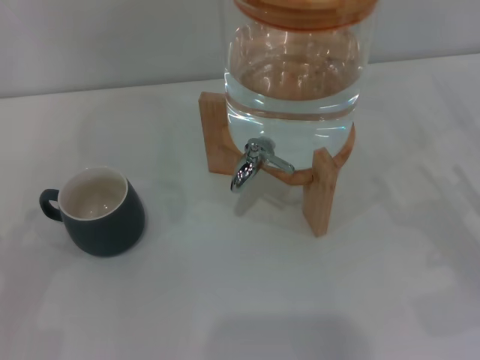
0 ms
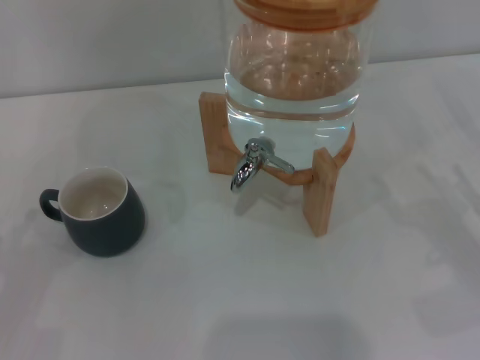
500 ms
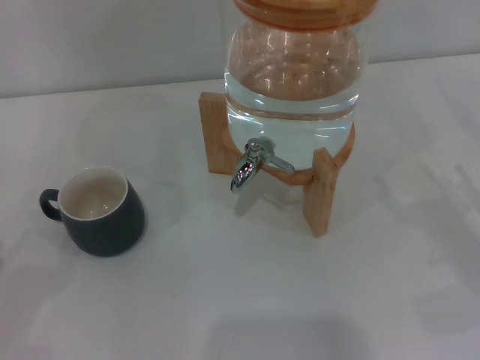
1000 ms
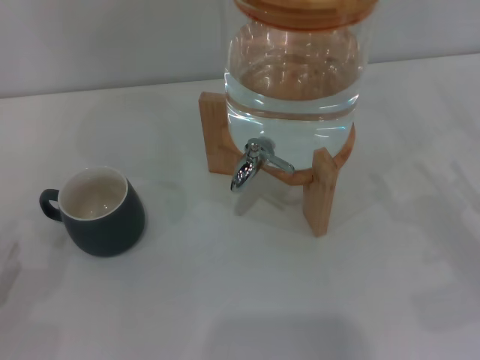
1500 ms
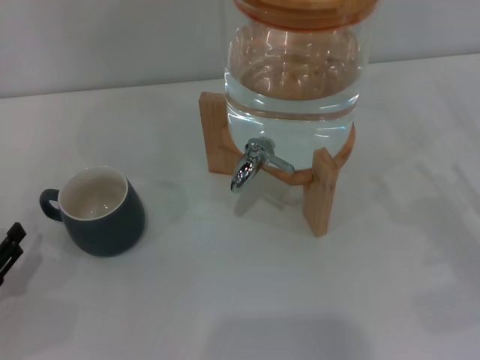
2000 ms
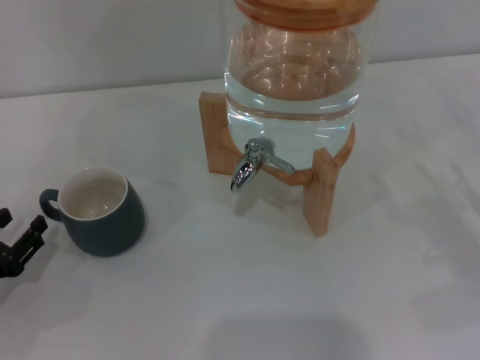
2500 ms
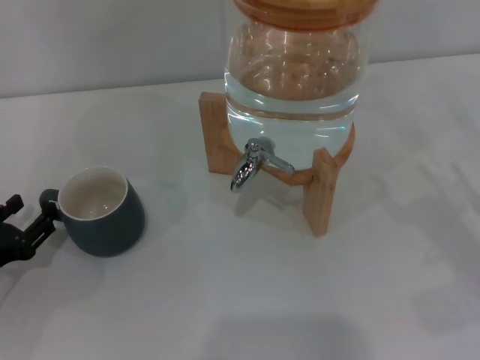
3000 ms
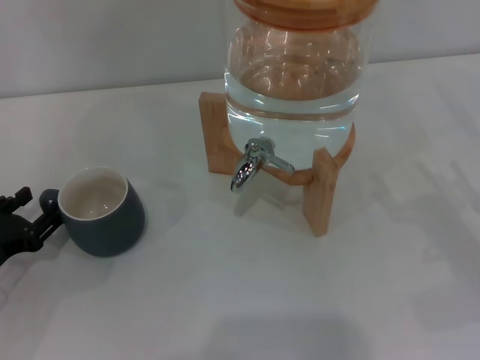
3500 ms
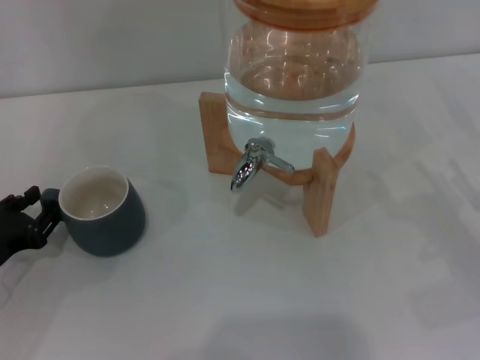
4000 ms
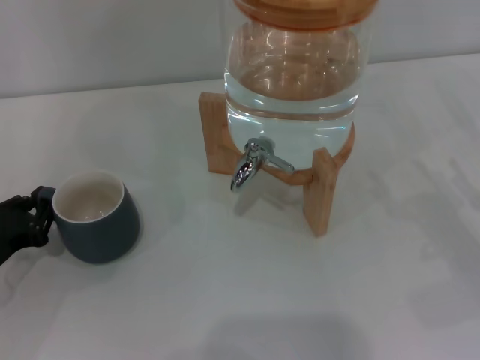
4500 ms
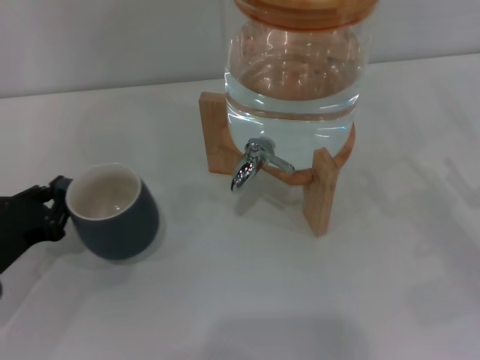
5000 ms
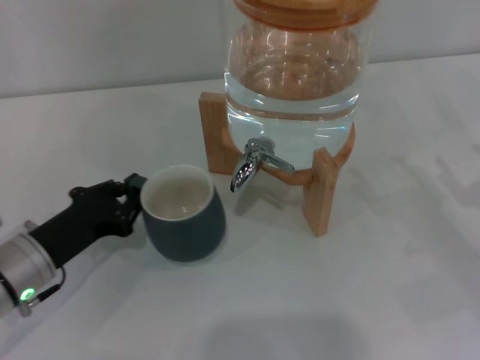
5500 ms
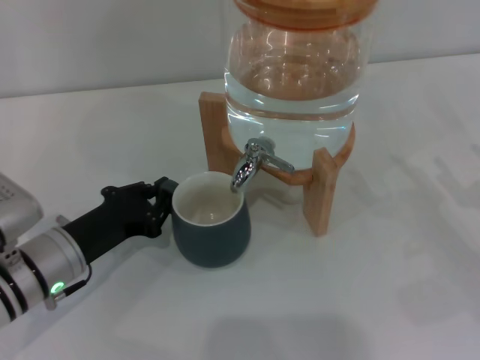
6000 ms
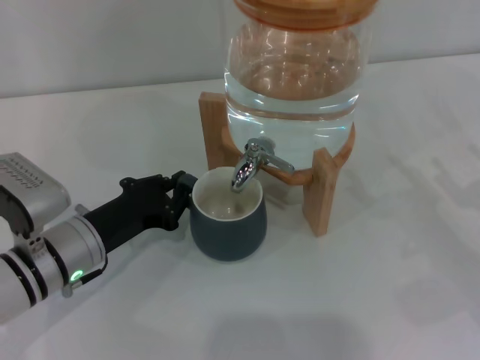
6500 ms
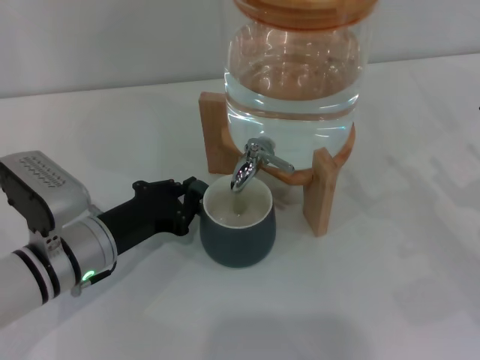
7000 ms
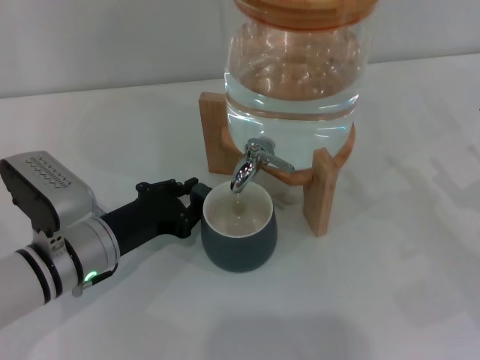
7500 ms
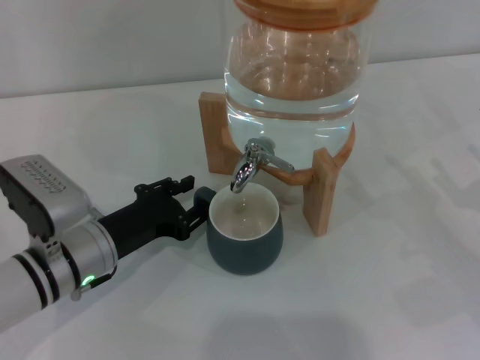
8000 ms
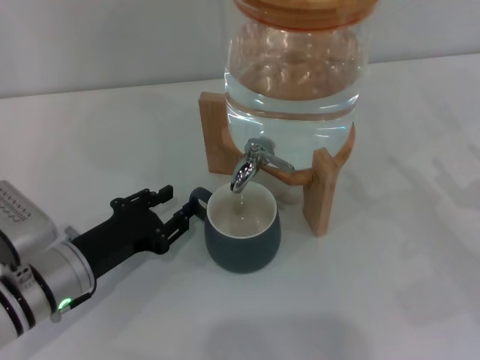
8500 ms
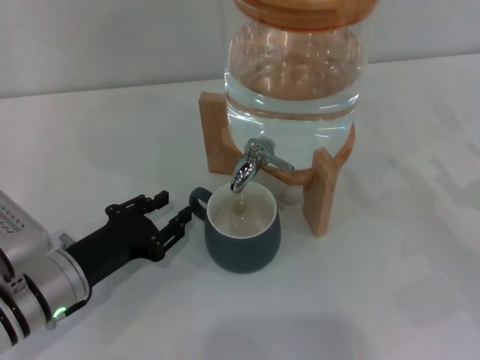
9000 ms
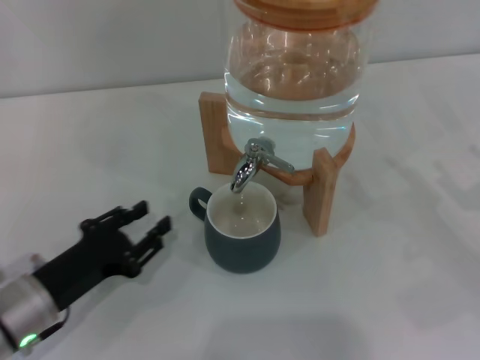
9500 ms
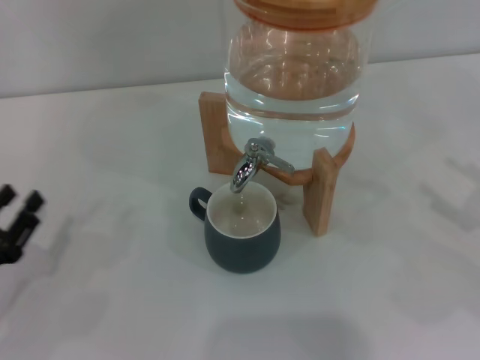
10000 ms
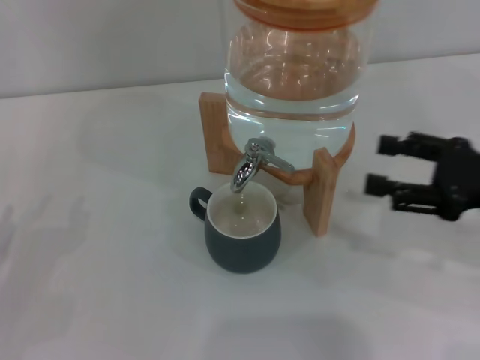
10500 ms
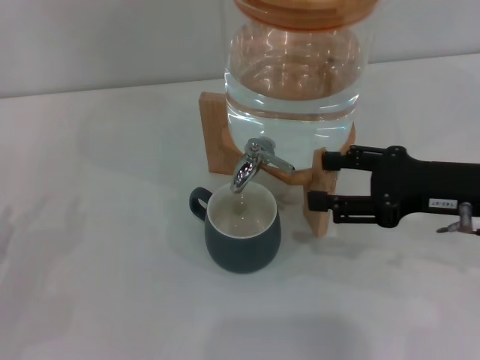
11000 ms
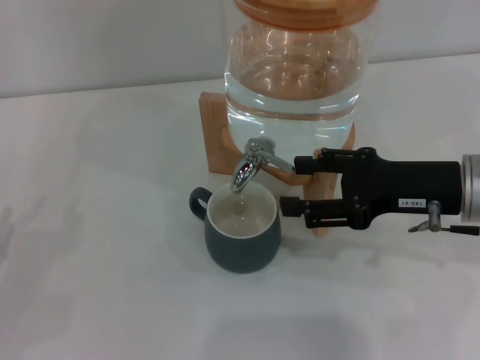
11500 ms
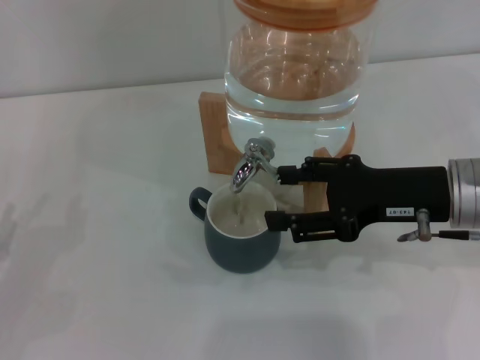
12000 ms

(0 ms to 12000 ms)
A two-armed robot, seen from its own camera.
Task of the whole recording: the left gripper pick up the black cup and place it horizontally under the faucet, the right gripper turn on the faucet to fill the cup, and then turn off the faucet.
Step, 0 ms - 9000 ms: Move the cup beneath the water dispenser nozzle with the left gripper.
2000 ms - 4000 ms: The left gripper travels forward by about 5 cm.
4000 ms - 6000 ms: The left gripper is displaced to the right by roughly 10 cm, and closes.
6000 ms - 8000 ms: The left gripper opens.
8000 ms - 10000 ms: The right gripper is displaced upward by about 5 cm, while the left gripper travels to the left and backward by about 15 cm.
10000 ms - 12000 ms: The right gripper goes some 15 cm to the left and forward.

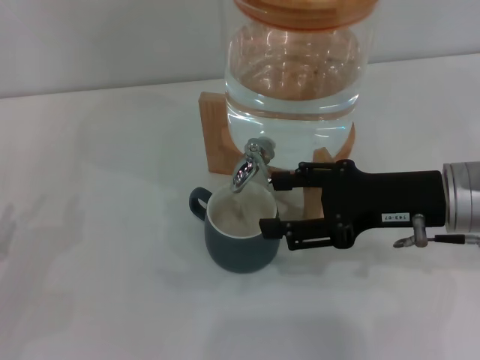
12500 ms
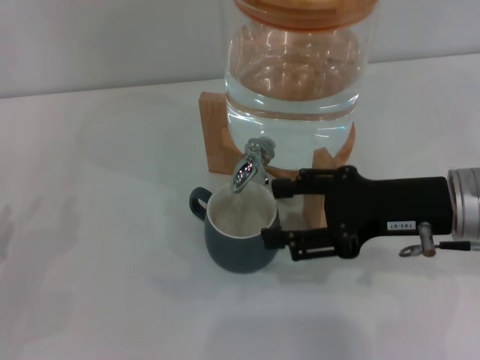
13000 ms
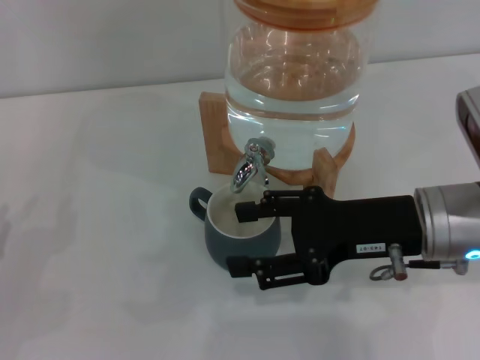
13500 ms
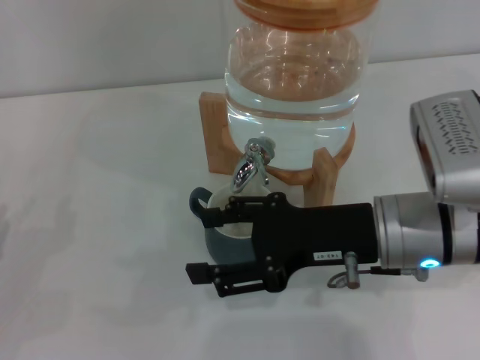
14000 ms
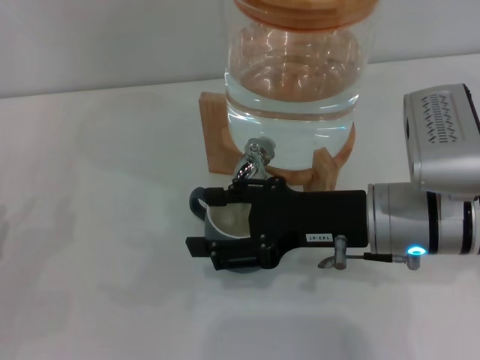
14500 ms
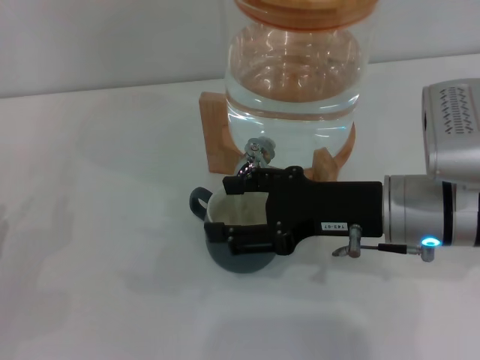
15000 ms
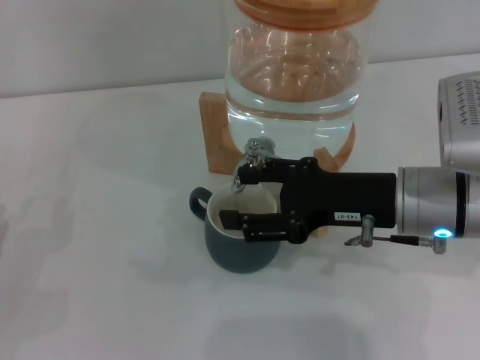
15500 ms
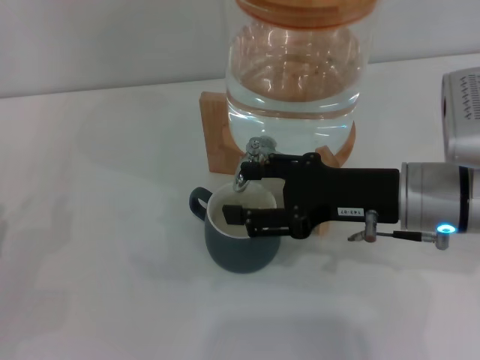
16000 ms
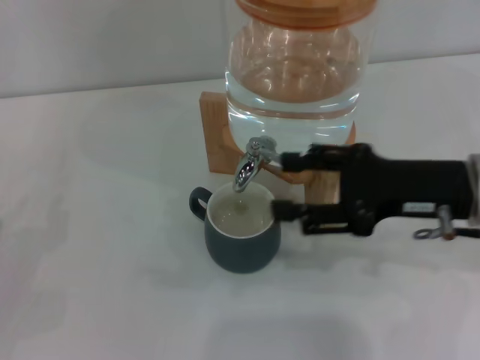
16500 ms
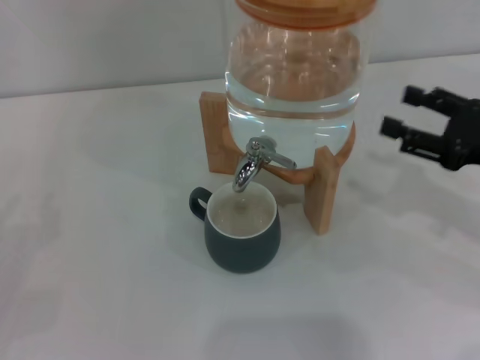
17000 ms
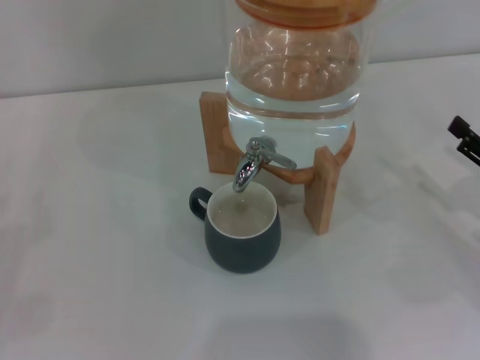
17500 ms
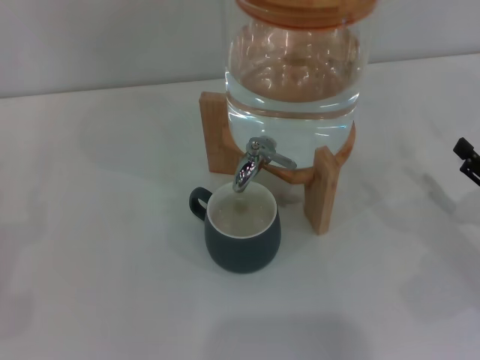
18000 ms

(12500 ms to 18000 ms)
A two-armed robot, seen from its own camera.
Task of the whole recording: the left gripper pick up the black cup and place it horizontally under the faucet, the right gripper turn on the faucet to fill the cup, and then turn off the faucet.
Step, 14500 ms - 16500 ms: Close the dispenser valve with the right gripper.
12500 ms - 14500 ms: The right gripper moves to the left, approximately 5 cm.
14500 ms - 16000 ms: The grippers make only small movements.
16000 ms - 18000 ms: The right gripper is displaced to the right and downward by approximately 20 cm.
